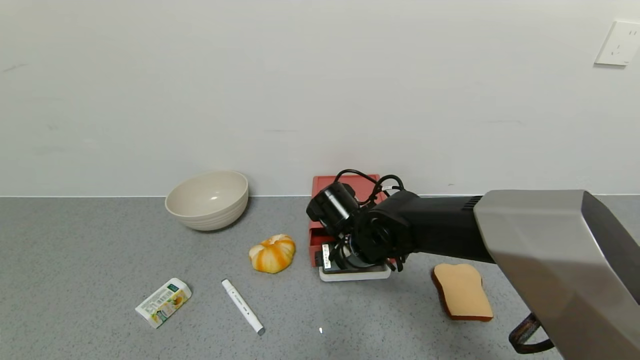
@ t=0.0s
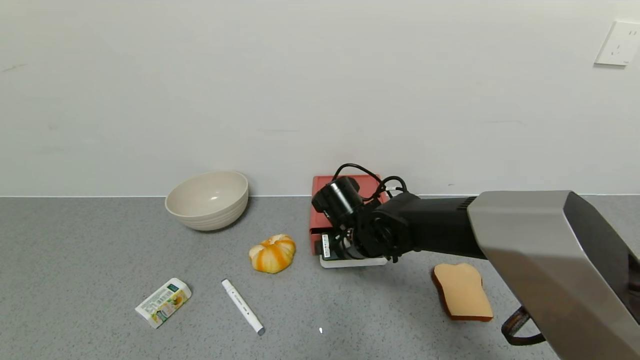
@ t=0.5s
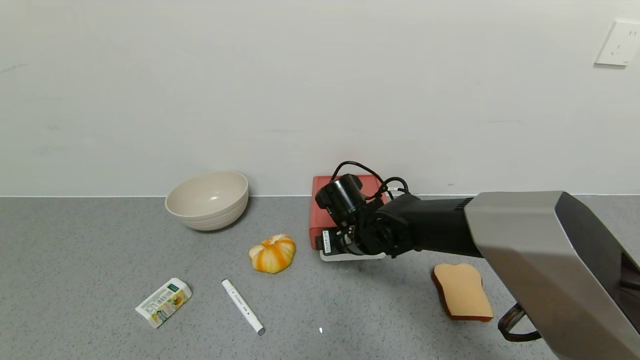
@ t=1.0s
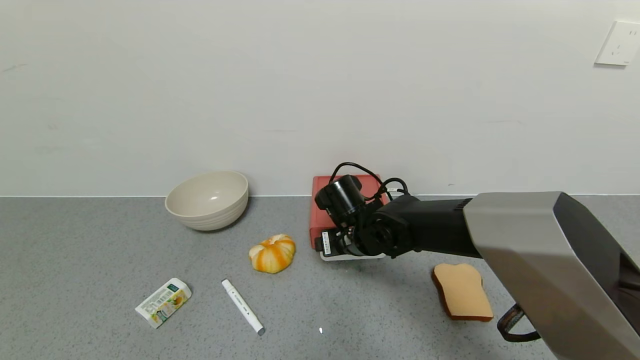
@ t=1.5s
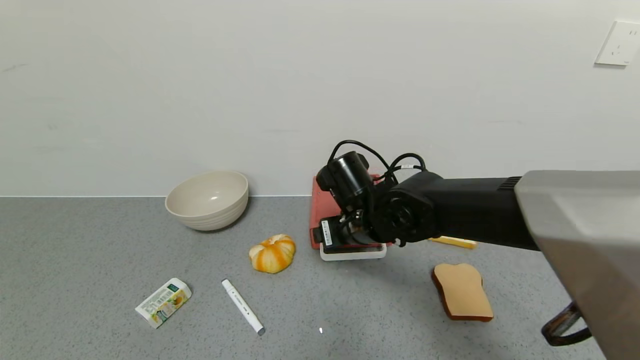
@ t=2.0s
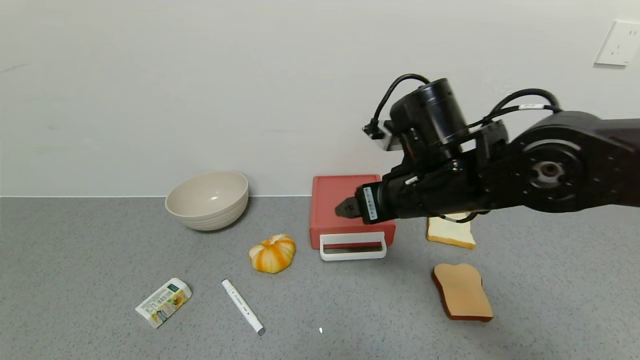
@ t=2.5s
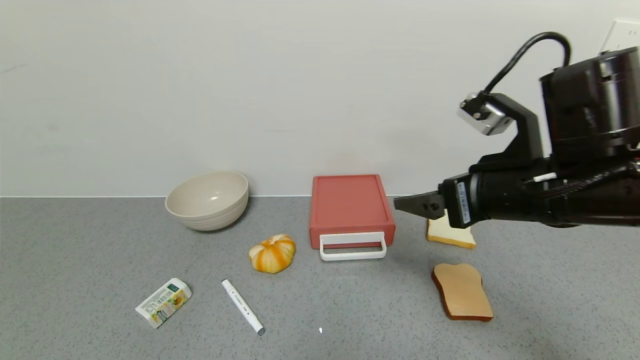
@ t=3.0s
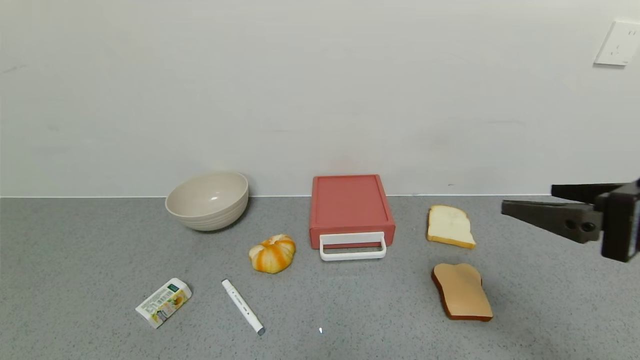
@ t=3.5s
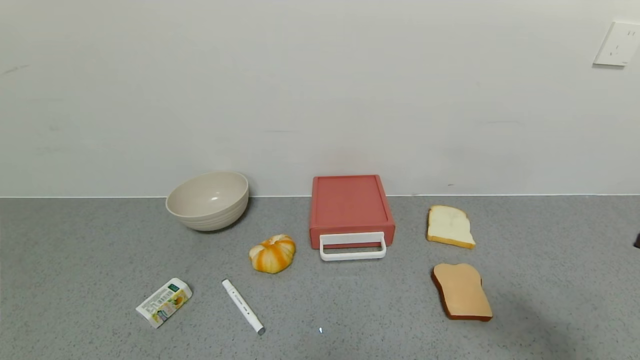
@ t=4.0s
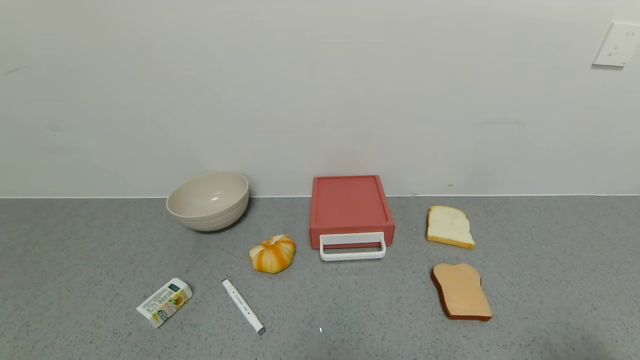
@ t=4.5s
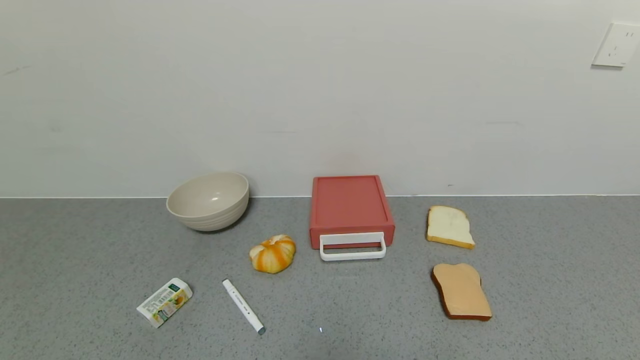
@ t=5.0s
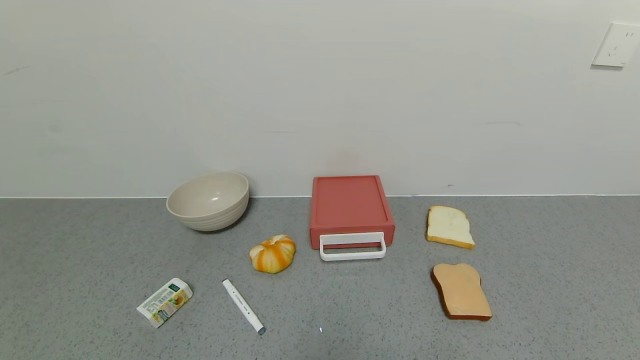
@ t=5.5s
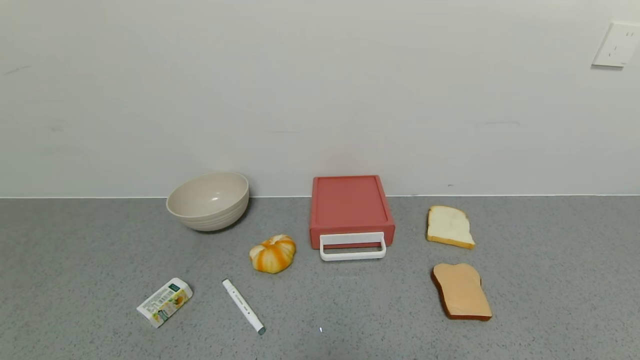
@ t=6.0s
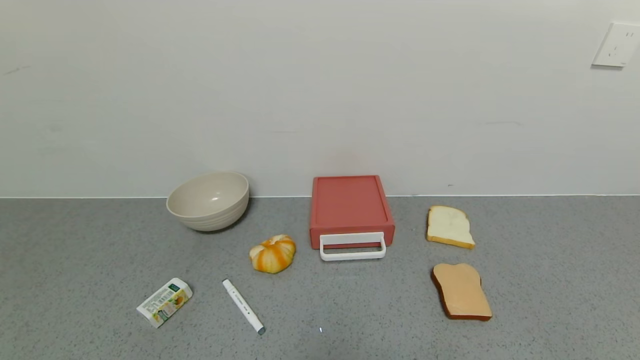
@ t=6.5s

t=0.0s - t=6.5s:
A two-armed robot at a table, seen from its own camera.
Task of the whole recording: use the gripper to open the drawer and close the red drawer.
Step, t=0.0s - t=2.0s: Close the red drawer with the right gripper.
t=0.0s - t=2.0s: The grippers move only a little.
t=2.0s - t=4.5s: The right gripper travels backward and to the right by roughly 50 cm.

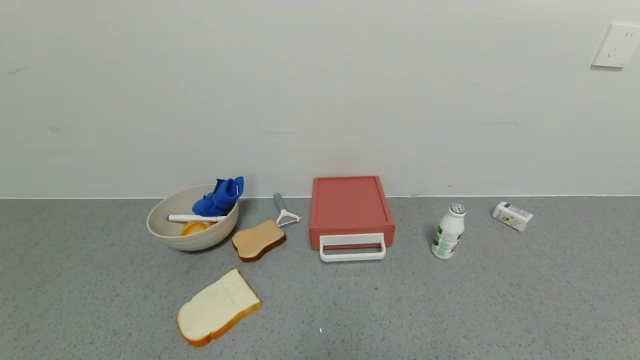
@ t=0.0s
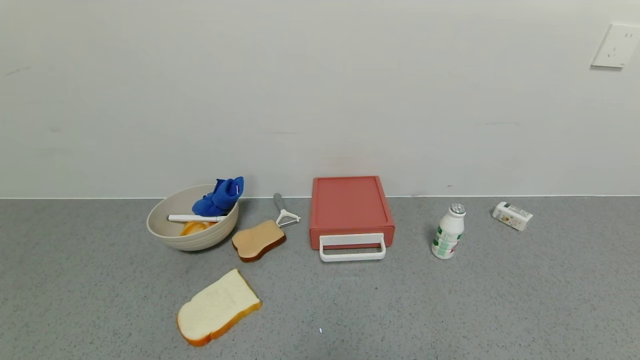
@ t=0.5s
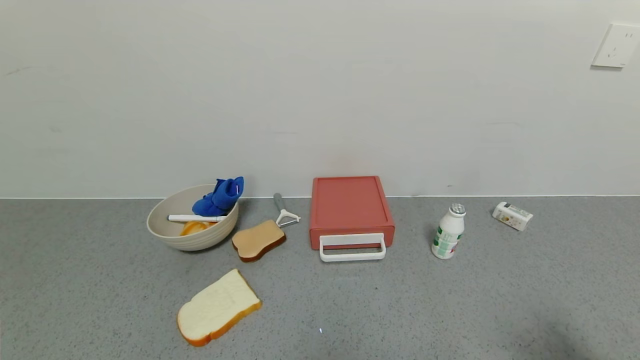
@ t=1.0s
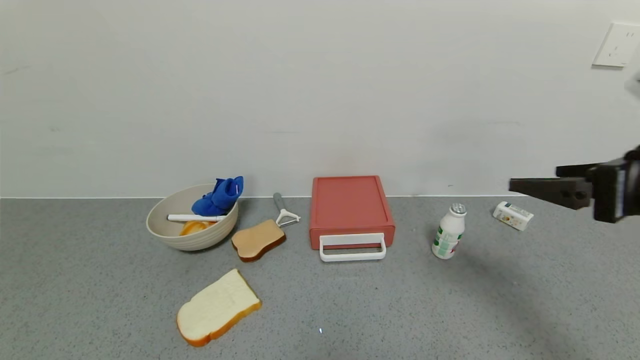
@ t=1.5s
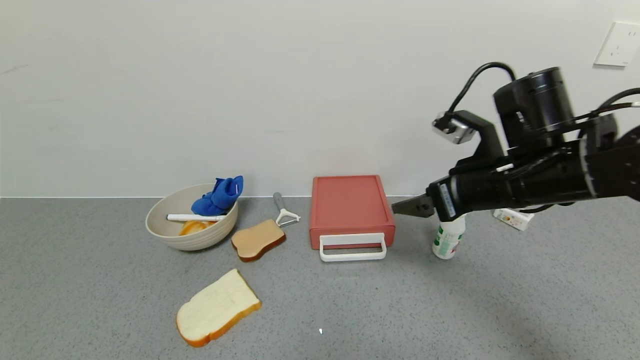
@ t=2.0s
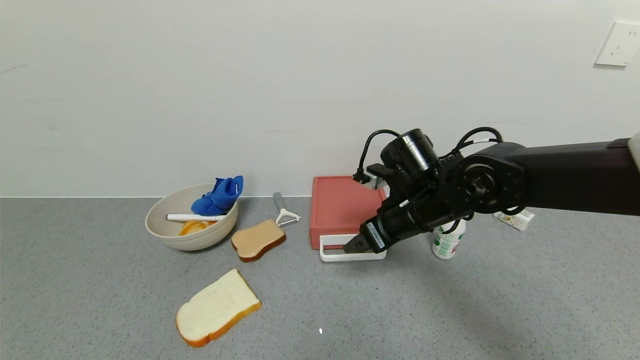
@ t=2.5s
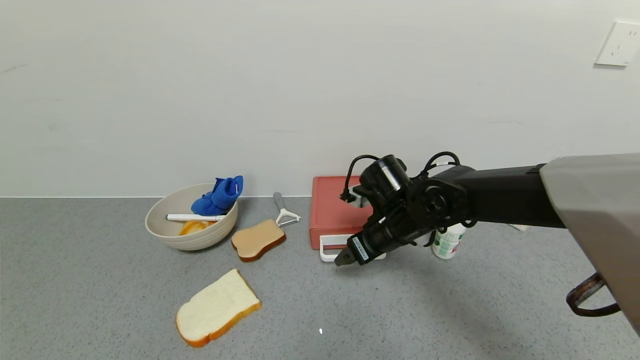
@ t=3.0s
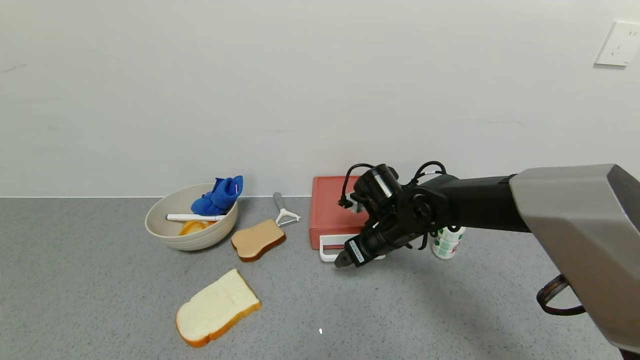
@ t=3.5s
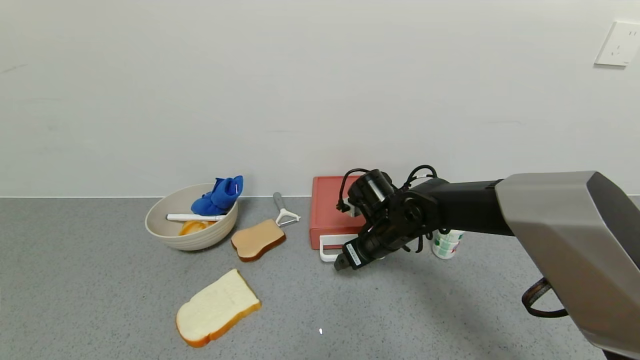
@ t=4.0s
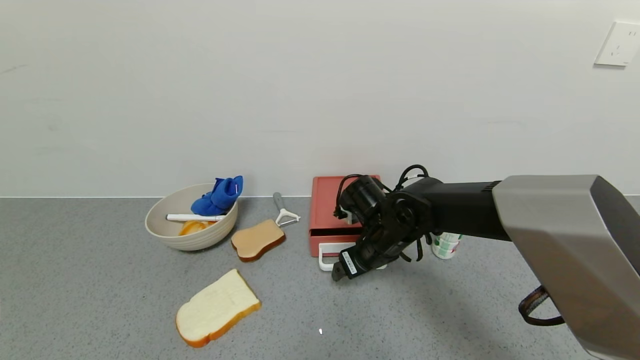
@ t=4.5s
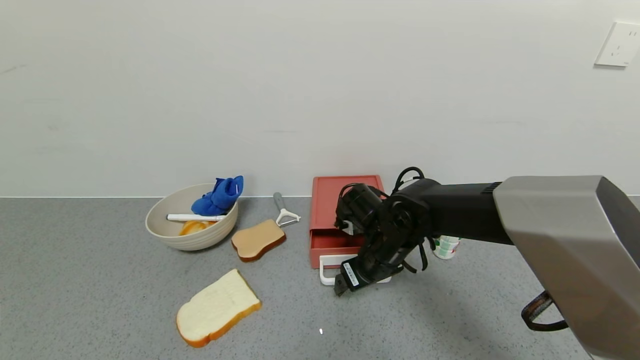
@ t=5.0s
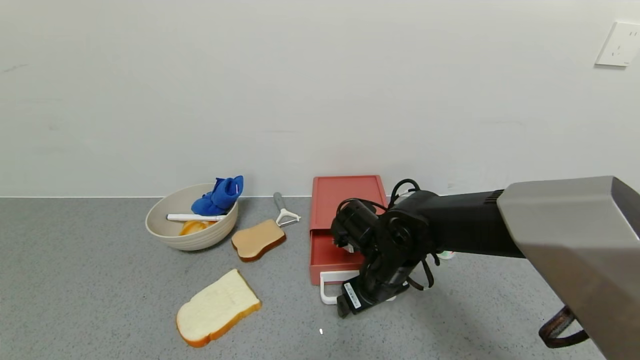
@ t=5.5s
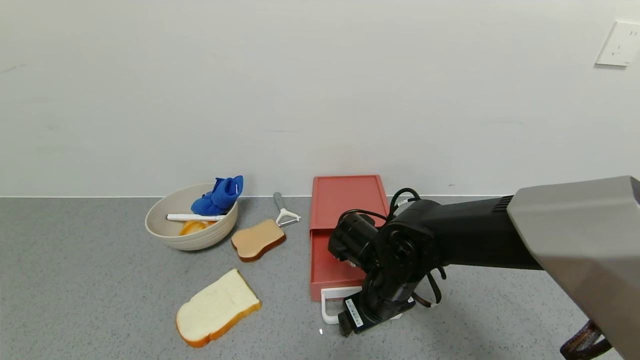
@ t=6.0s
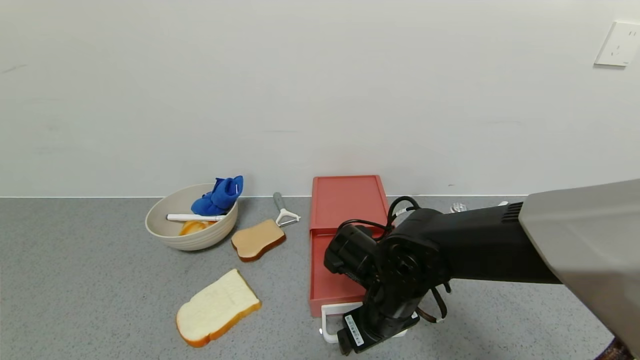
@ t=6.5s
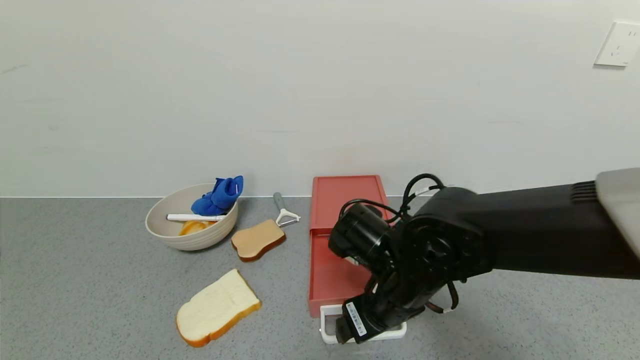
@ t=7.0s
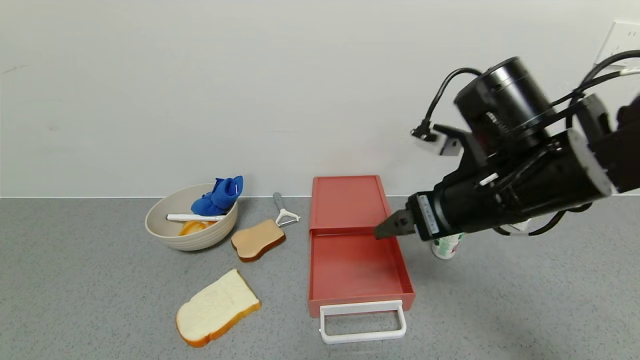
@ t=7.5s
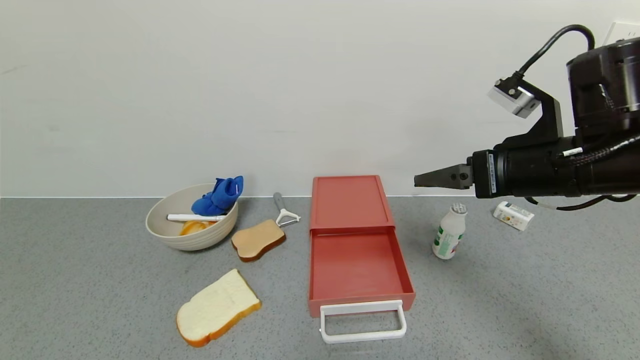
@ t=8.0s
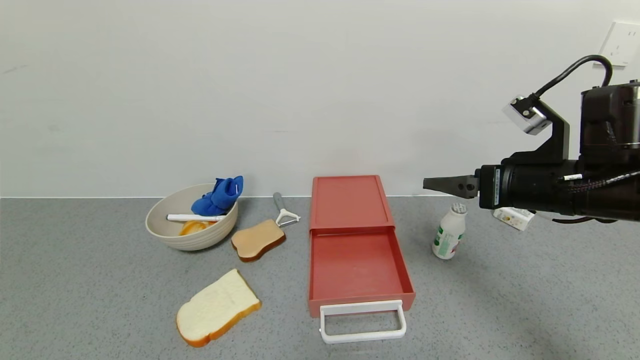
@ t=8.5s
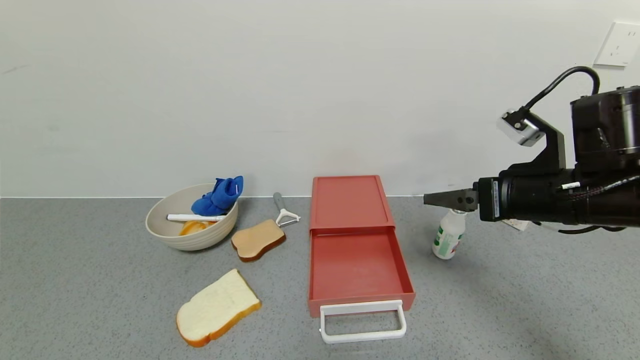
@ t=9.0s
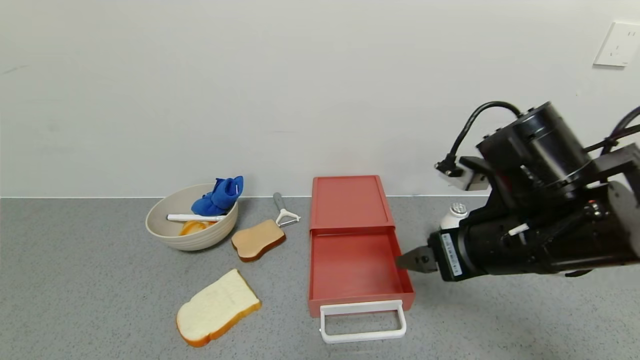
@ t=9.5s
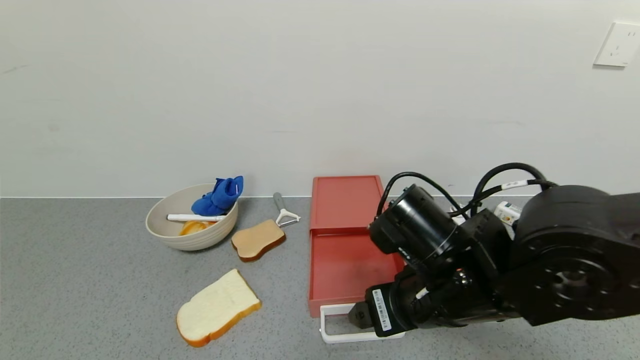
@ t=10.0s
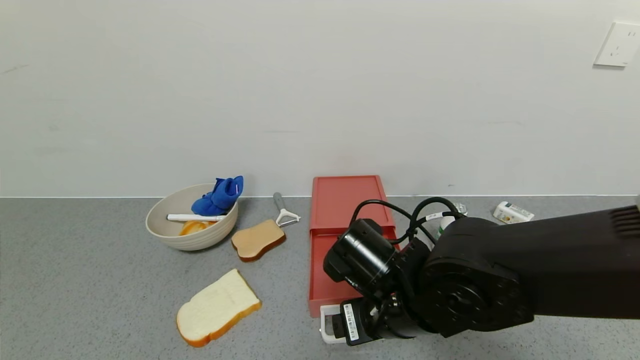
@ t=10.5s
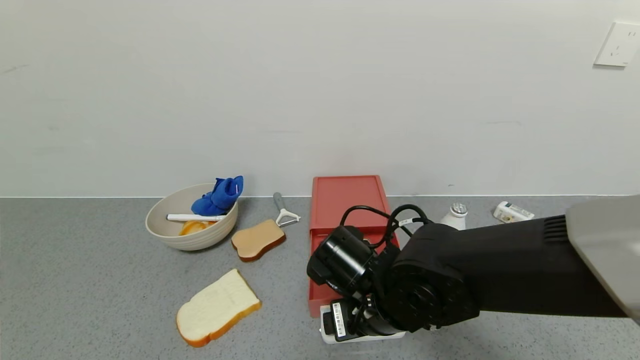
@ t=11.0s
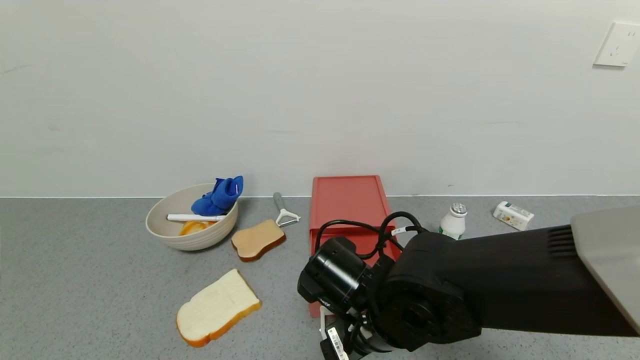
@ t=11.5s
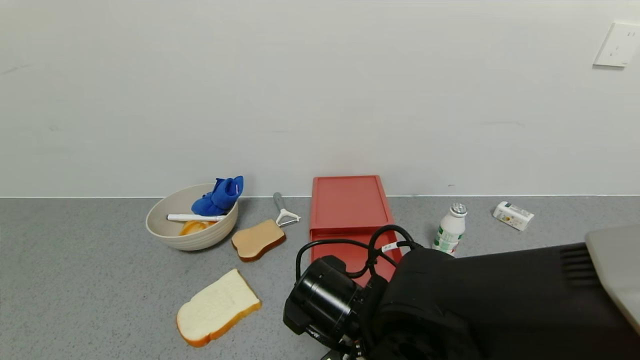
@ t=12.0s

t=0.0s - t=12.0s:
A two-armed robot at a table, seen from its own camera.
Task of the whole recording: use the gripper to open the drawer and close the red drawer.
Step, t=0.0s - t=7.0s: Open the red drawer with the right gripper.
t=0.0s - t=2.0s: The right gripper heads forward and to the left, covering some 30 cm.
t=2.0s - t=4.0s: The right gripper shifts some 20 cm downward, to the left and forward.
t=4.0s - t=6.0s: The right gripper shifts some 10 cm backward.
t=6.0s - t=8.0s: The right gripper moves upward and to the right, about 25 cm.
t=8.0s - t=10.0s: The right gripper moves to the left, downward and backward, about 15 cm.
t=10.0s - t=12.0s: The right gripper moves to the left and downward, approximately 10 cm.

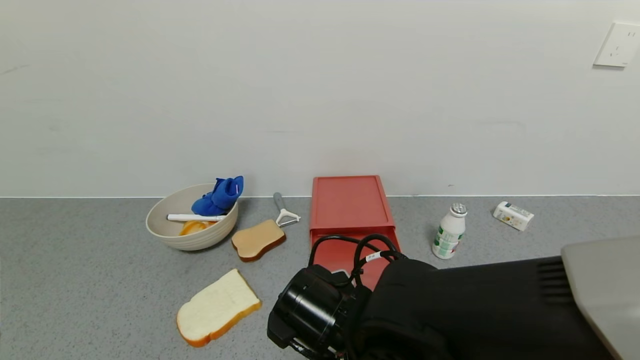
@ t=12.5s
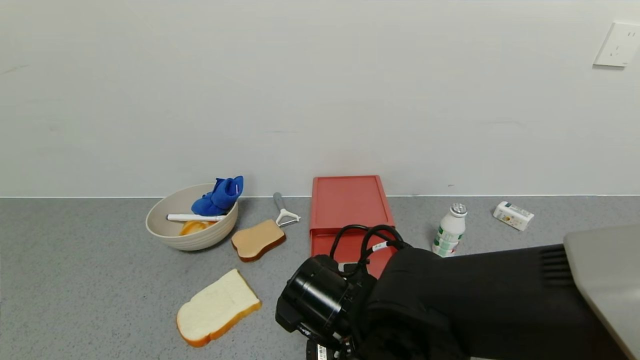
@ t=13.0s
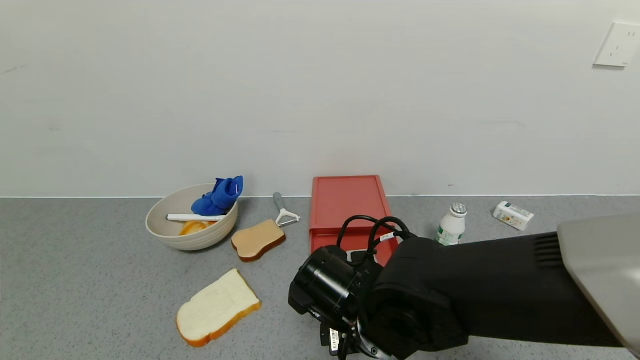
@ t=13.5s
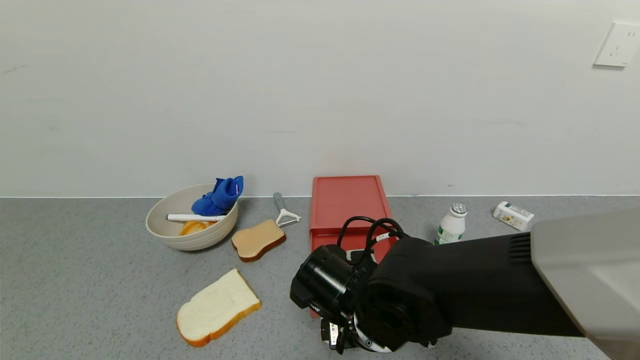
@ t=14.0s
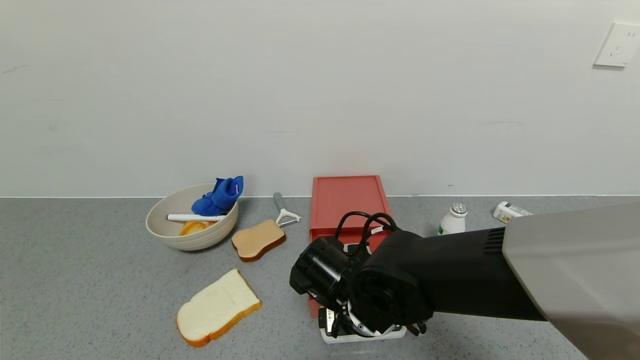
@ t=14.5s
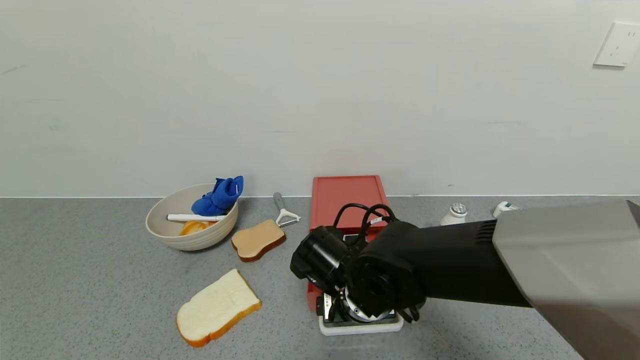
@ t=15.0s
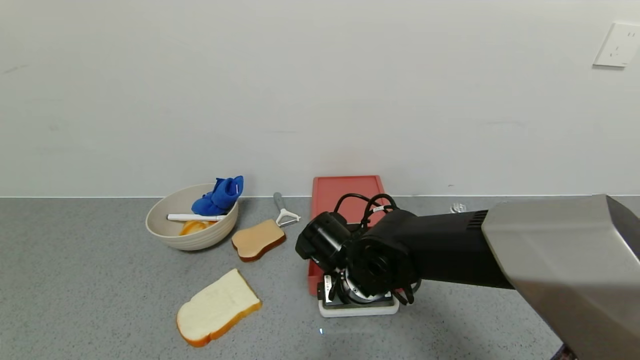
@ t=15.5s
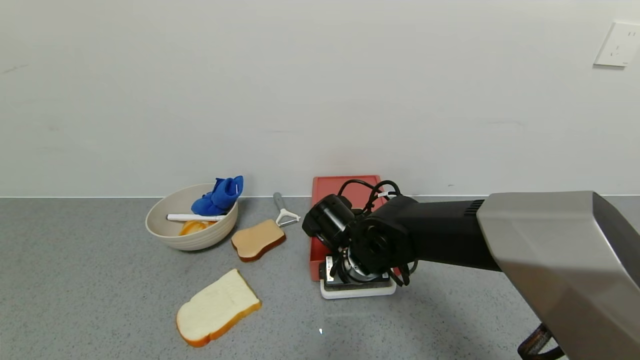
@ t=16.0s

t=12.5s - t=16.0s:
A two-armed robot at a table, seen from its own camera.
Task of the whole recording: use the gripper to open the drawer and close the red drawer.
Step, t=12.5s - t=14.5s: Close the red drawer with the right gripper.
t=12.5s - t=14.5s: The right gripper heads forward, covering approximately 5 cm.
t=14.5s - t=16.0s: The right gripper goes roughly 5 cm forward.
